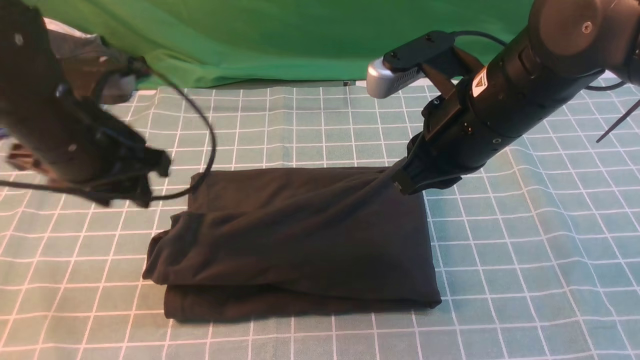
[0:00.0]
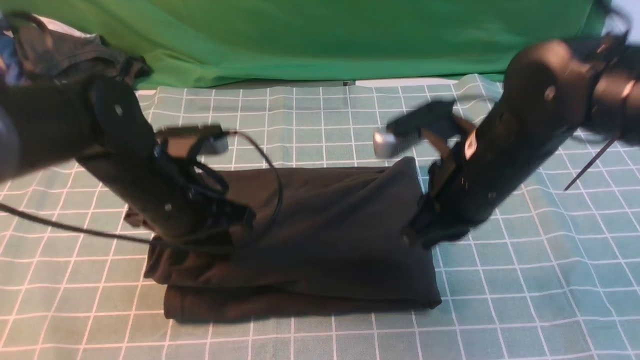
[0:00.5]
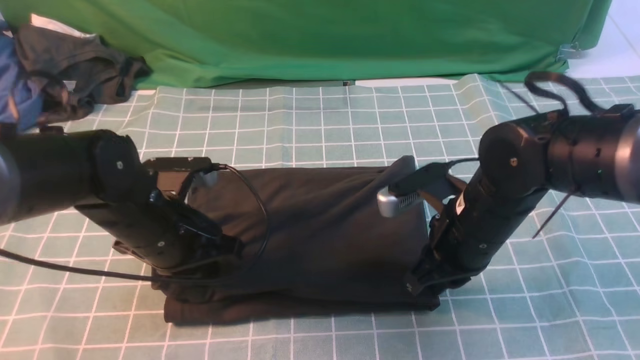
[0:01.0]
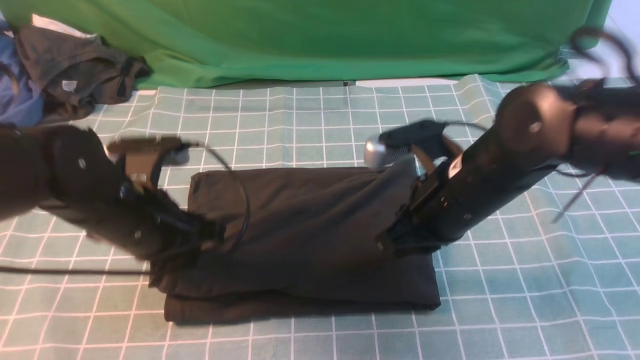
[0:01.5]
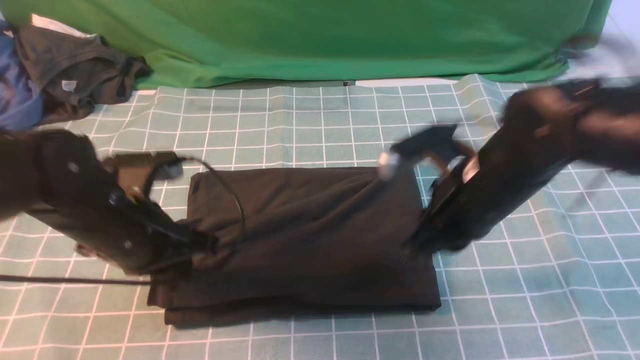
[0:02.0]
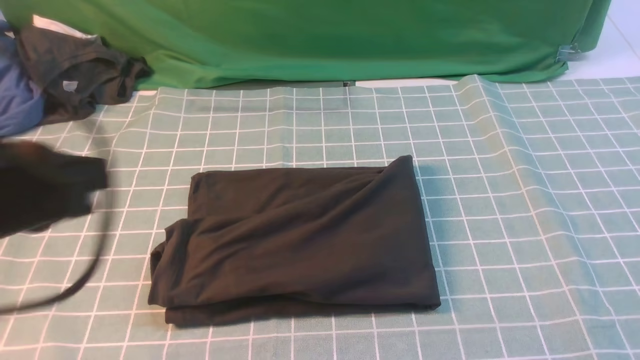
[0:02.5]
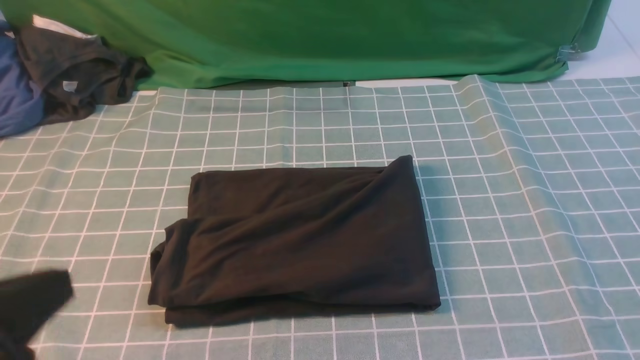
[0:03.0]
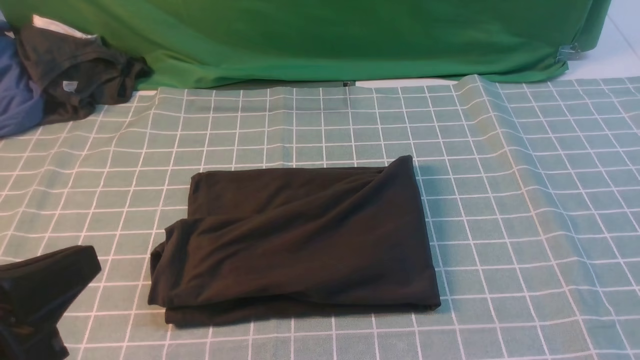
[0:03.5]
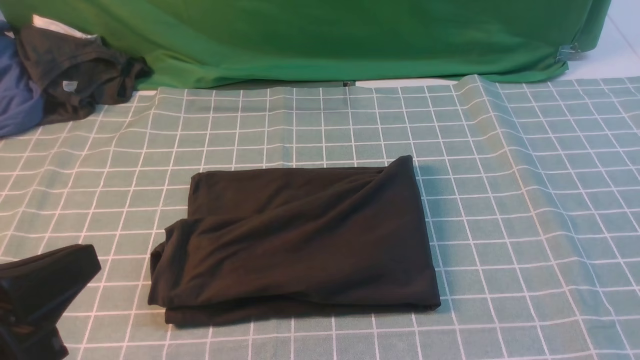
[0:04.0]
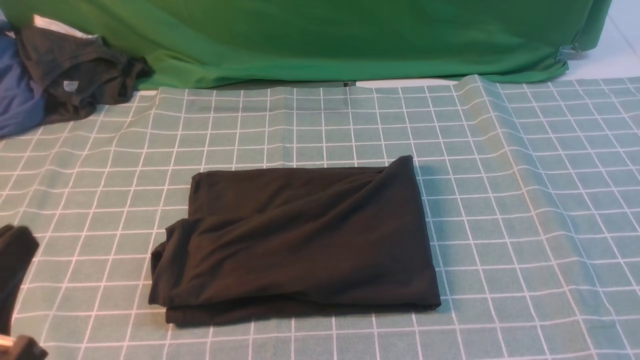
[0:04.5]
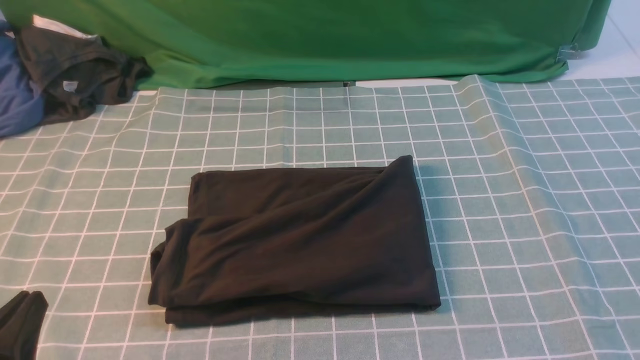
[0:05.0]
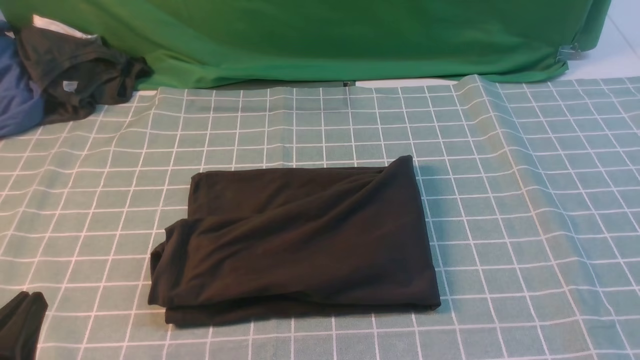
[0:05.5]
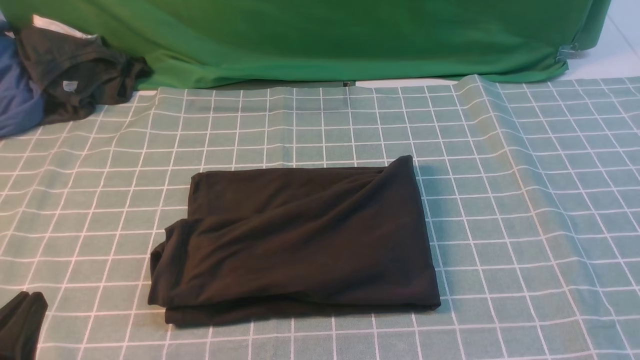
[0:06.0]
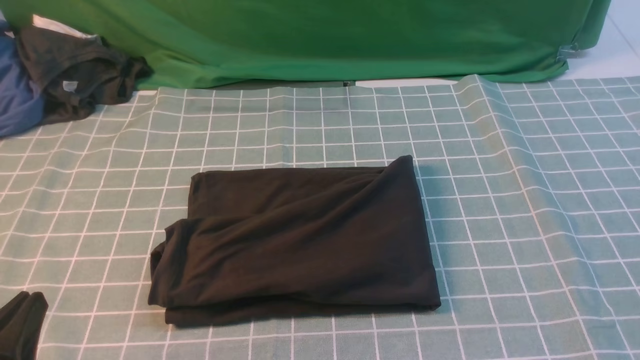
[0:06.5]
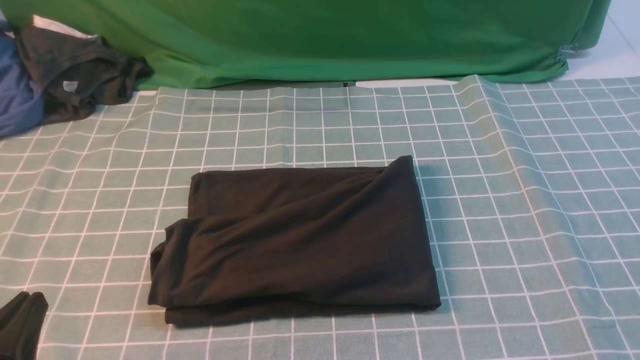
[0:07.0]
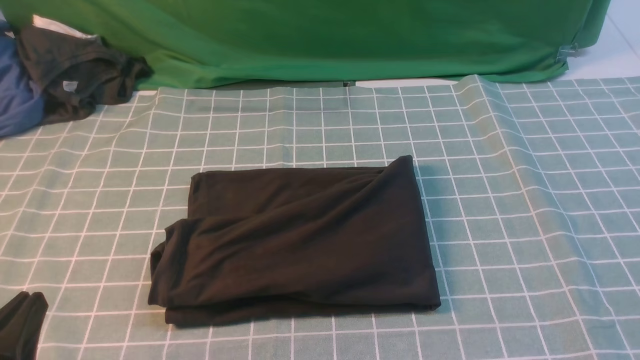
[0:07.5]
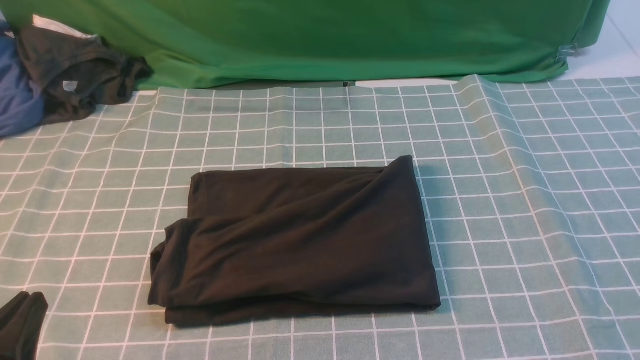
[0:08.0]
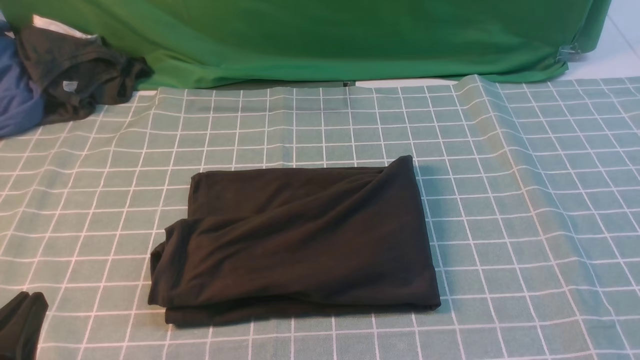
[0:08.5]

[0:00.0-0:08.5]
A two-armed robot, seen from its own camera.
0:00.0 to 0:02.0: The left gripper shifts approximately 5 cm downward, and closes.
0:02.0 to 0:04.0: The left gripper travels backward and upward by some 20 cm; the right gripper moves backward and to the right, some 30 cm.
0:04.0 to 0:06.5: The left gripper heads downward, covering some 10 cm.

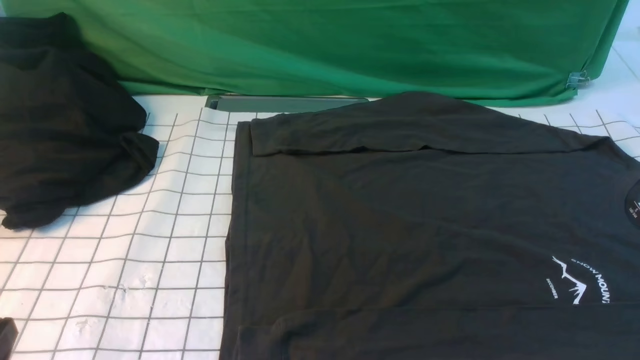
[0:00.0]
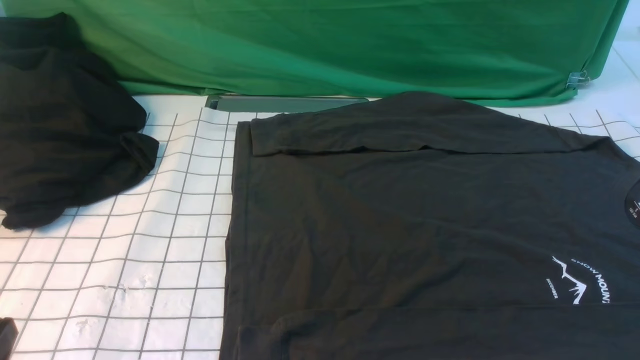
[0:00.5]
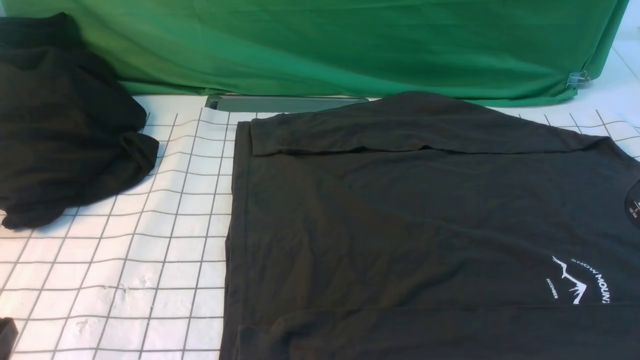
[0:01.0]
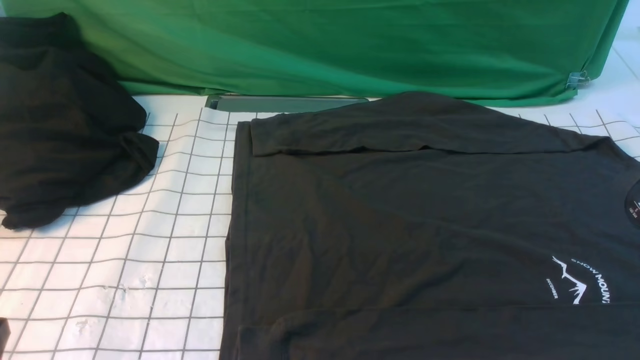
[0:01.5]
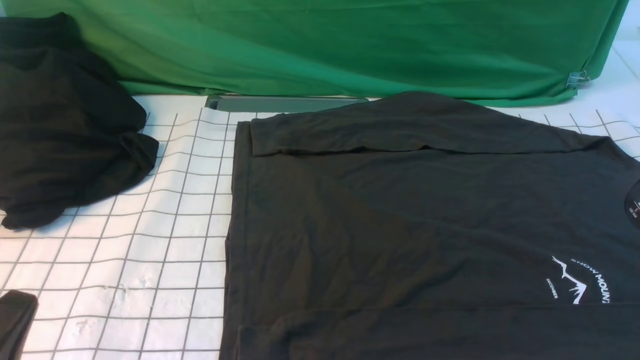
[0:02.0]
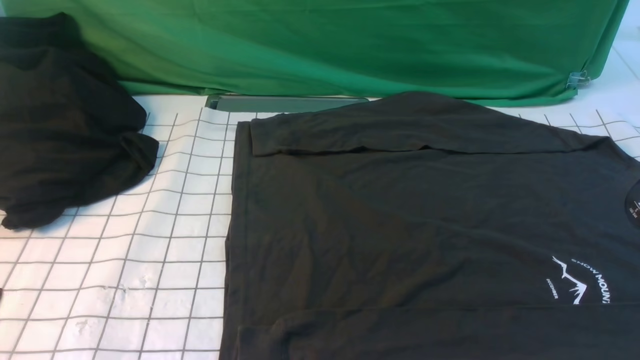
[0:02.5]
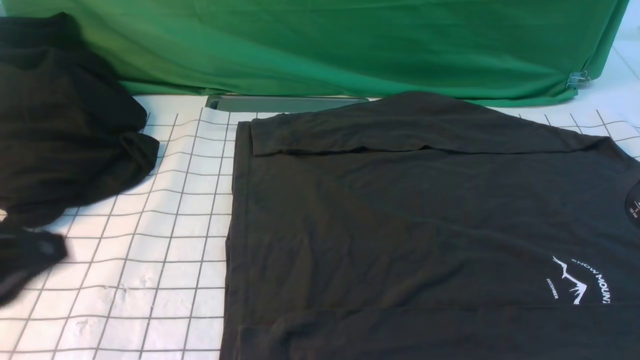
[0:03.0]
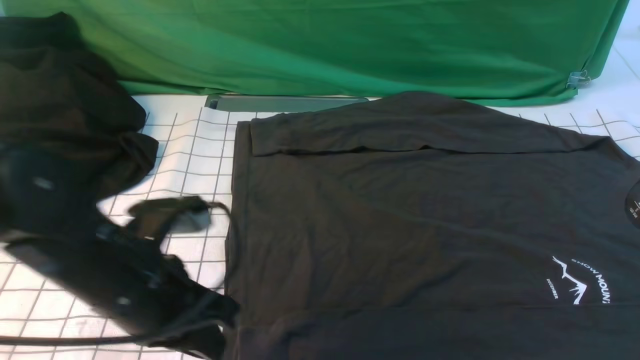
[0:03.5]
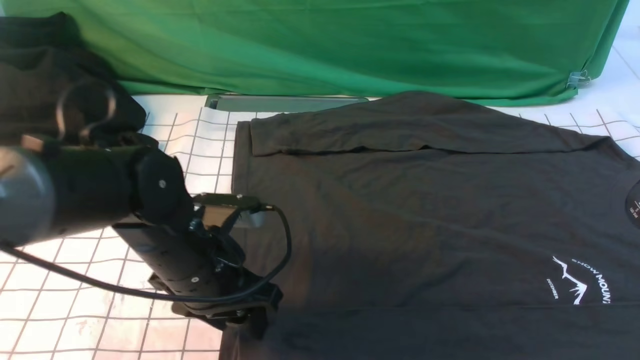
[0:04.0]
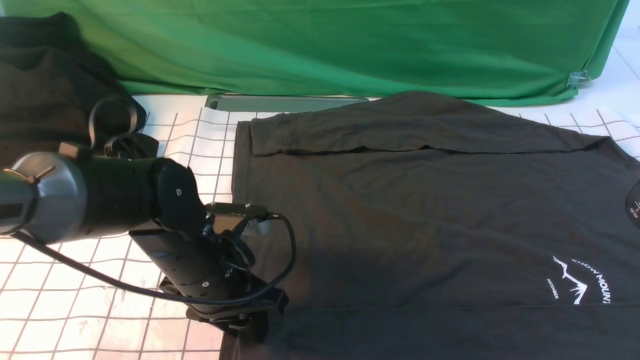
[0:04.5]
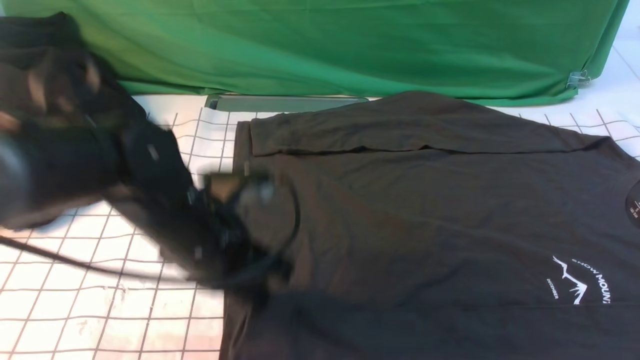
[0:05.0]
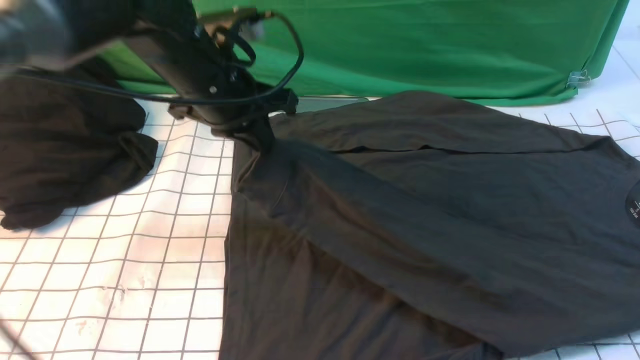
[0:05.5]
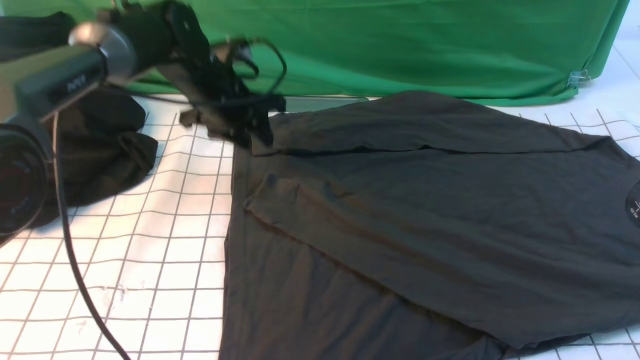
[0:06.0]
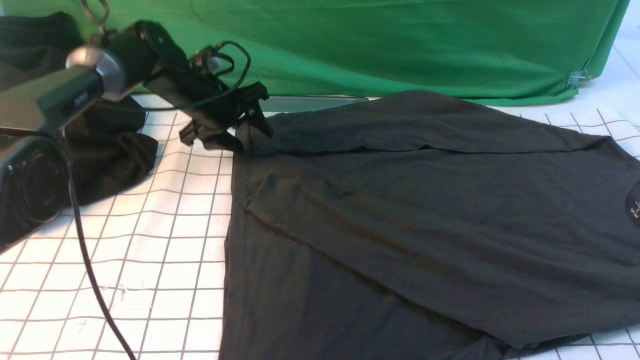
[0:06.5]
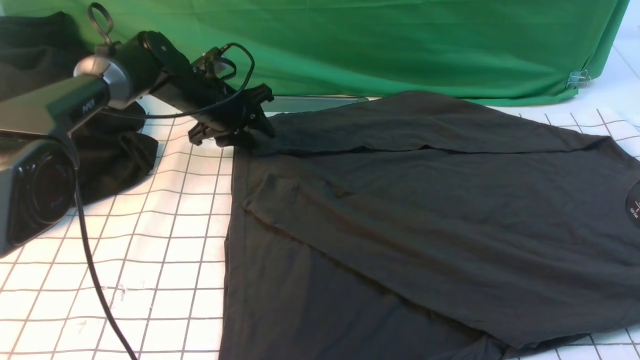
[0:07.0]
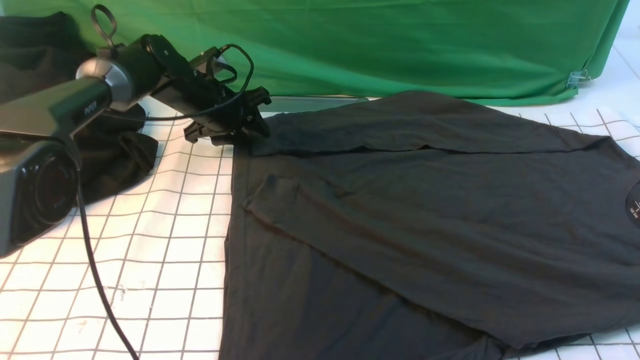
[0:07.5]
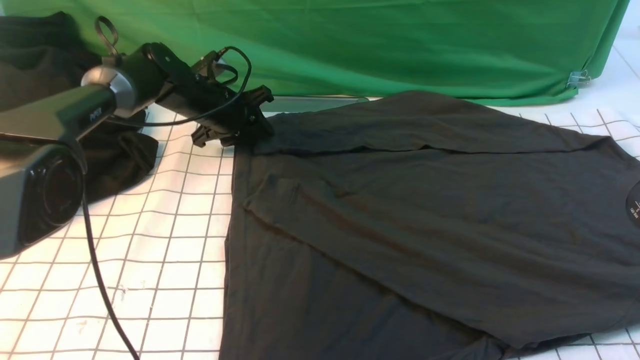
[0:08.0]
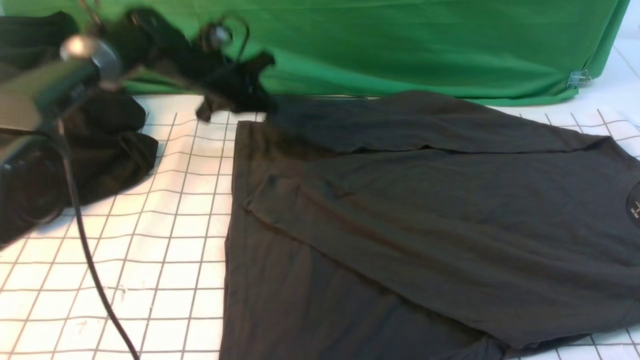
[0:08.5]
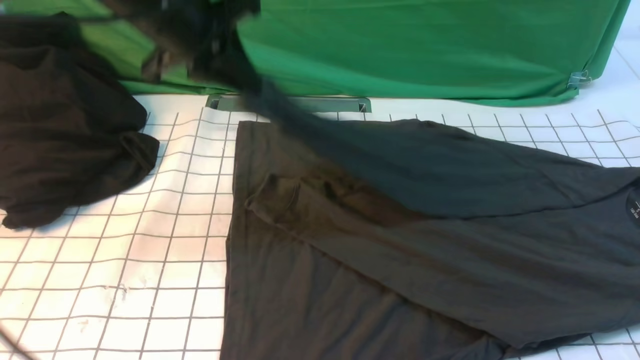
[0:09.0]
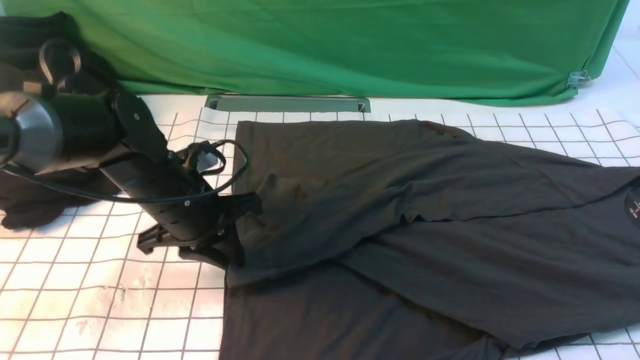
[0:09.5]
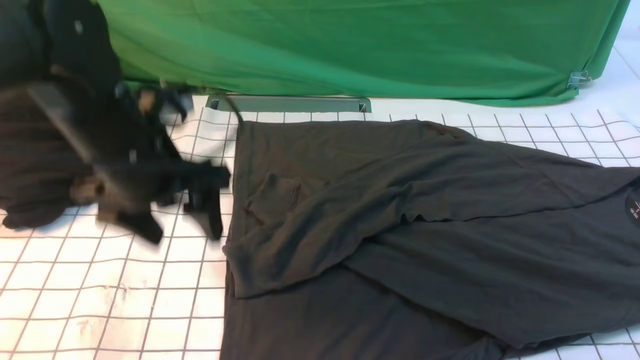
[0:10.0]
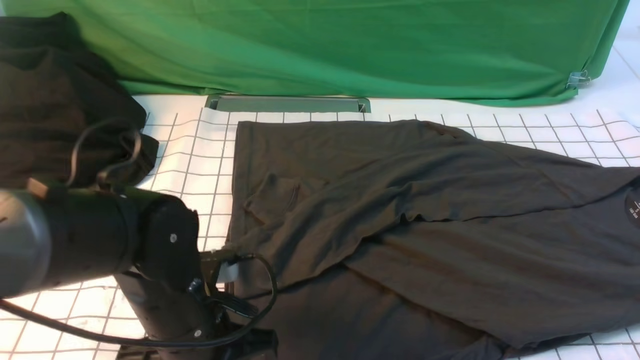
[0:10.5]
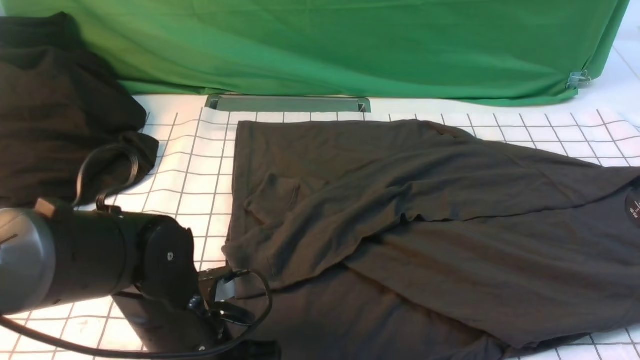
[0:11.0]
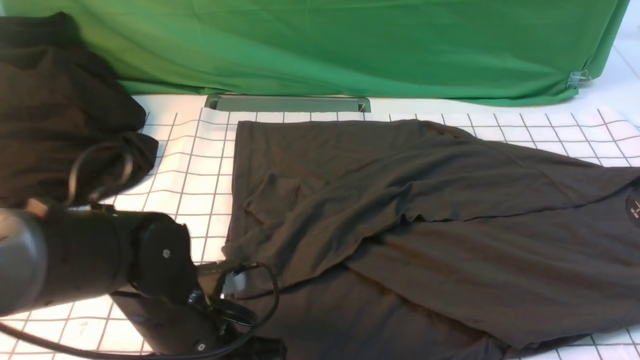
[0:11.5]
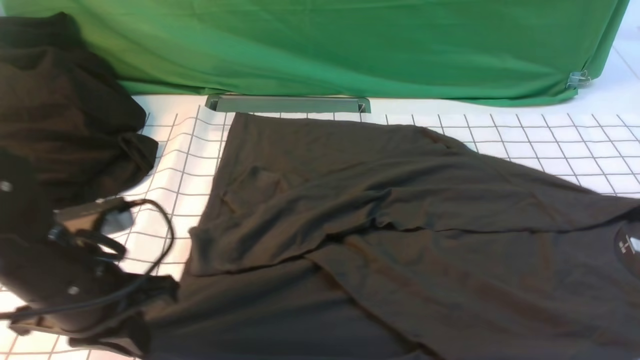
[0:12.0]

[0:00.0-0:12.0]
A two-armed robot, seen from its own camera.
Step, 0:00.0 to 0:04.5: use the left arm to clamp the cuff closest to it.
Step, 0:05.0 to 0:05.5: use the left arm to drag and place the cuff at the centered position on the left edge of the fabric.
Step, 0:06.5 to 0:08.0: use the left arm to clamp the cuff farthest from it.
Step, 0:08.5 to 0:09.5: use the left arm to drag and drop the cuff onto the cuff closest to the left arm.
0:02.0 to 0:04.0: The right gripper heads upward, covering approximately 5 cm, while the left gripper moves forward and to the right, about 25 cm, and opens up.
0:04.0 to 0:06.0: The left gripper goes some 20 cm forward, and closes, then reopens.
0:06.0 to 0:08.0: The left gripper goes some 10 cm downward and forward.
0:08.0 to 0:10.0: The left gripper moves backward and upward, roughly 25 cm, and opens up.
0:10.0 to 0:12.0: The left gripper heads backward and to the left, covering approximately 10 cm, and closes up. The right gripper ends up approximately 5 cm from where it was.
